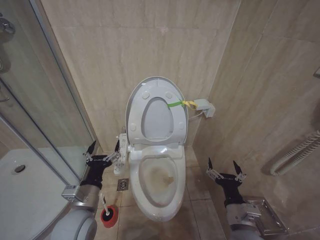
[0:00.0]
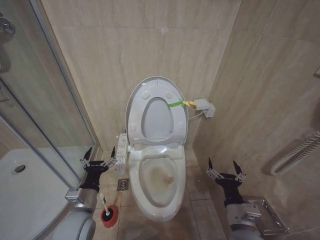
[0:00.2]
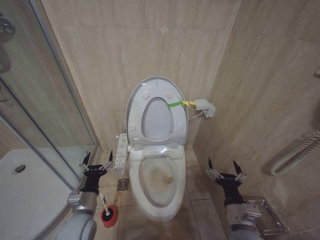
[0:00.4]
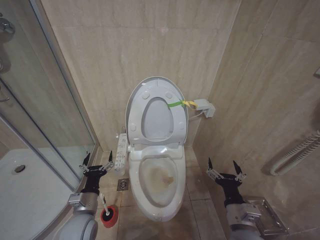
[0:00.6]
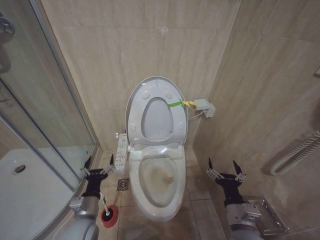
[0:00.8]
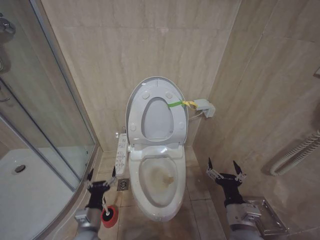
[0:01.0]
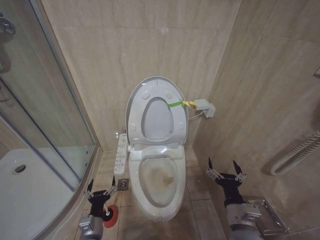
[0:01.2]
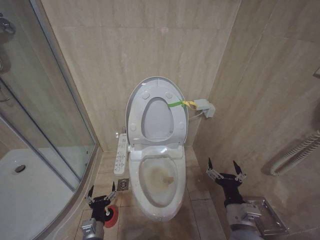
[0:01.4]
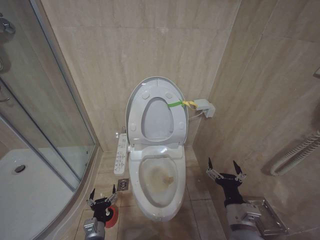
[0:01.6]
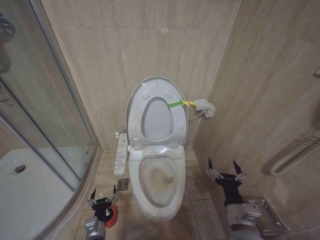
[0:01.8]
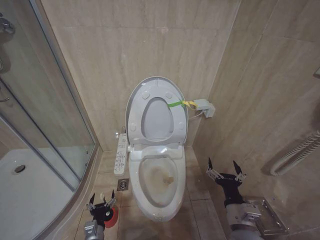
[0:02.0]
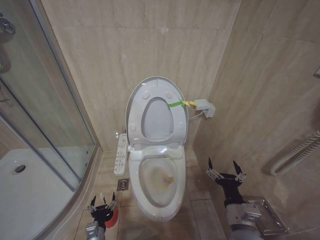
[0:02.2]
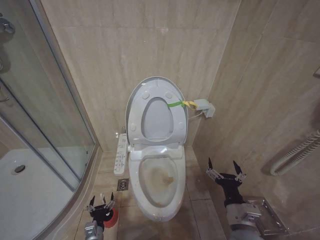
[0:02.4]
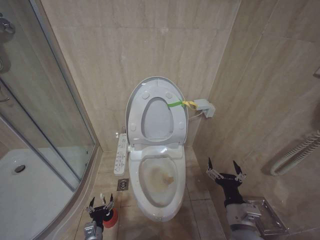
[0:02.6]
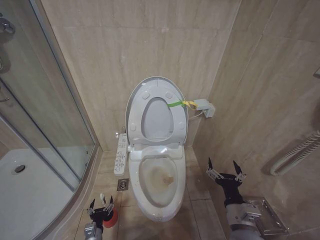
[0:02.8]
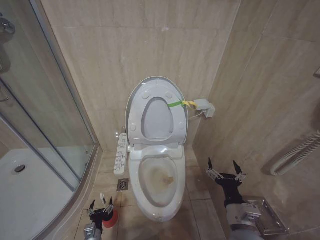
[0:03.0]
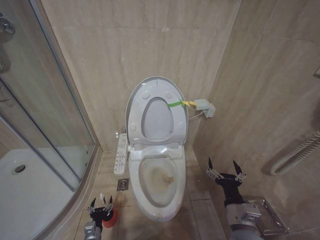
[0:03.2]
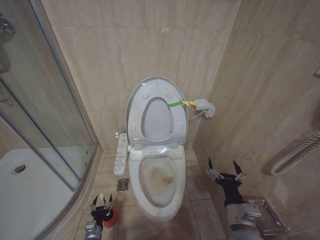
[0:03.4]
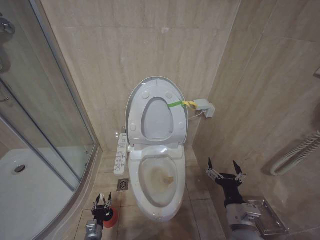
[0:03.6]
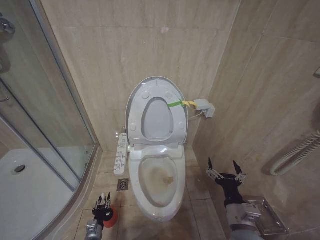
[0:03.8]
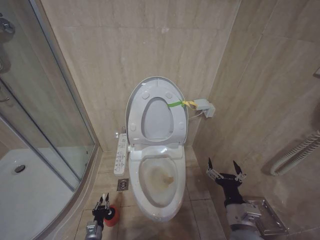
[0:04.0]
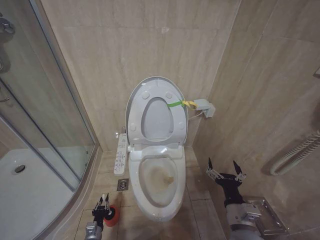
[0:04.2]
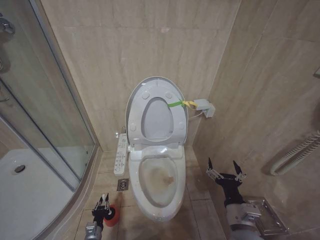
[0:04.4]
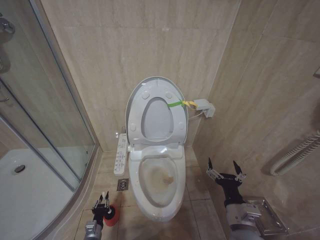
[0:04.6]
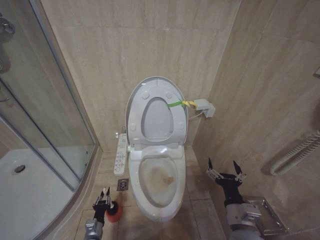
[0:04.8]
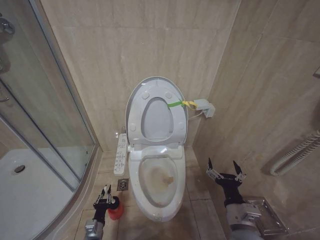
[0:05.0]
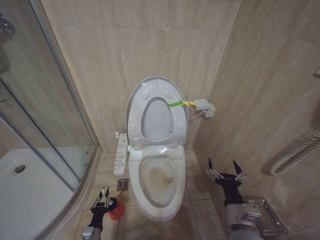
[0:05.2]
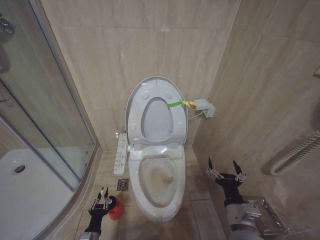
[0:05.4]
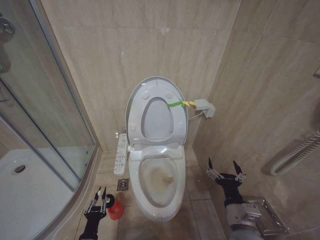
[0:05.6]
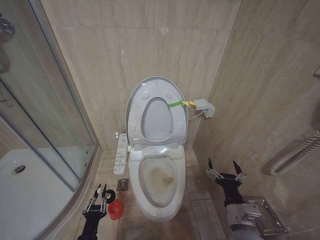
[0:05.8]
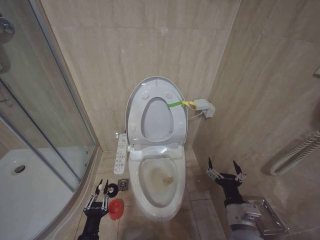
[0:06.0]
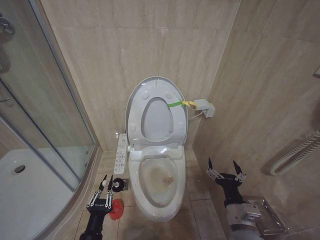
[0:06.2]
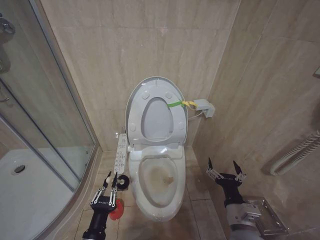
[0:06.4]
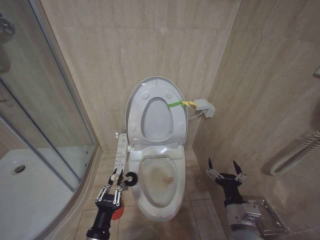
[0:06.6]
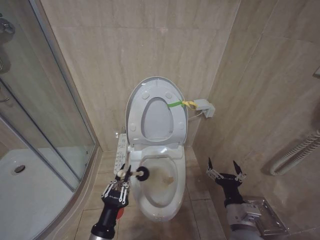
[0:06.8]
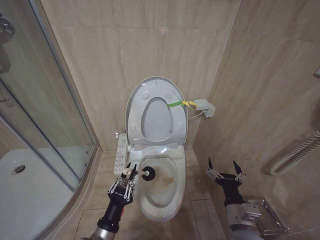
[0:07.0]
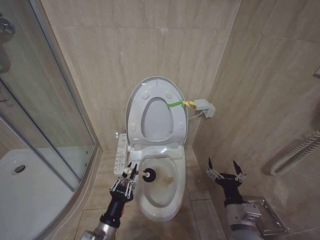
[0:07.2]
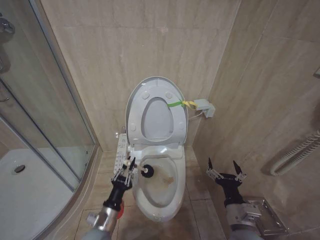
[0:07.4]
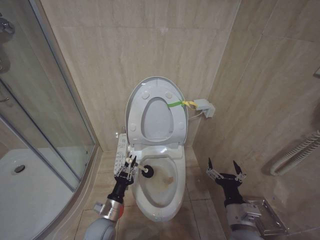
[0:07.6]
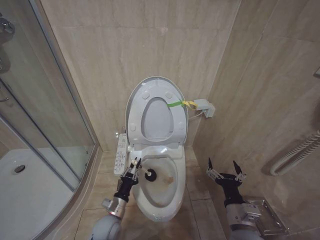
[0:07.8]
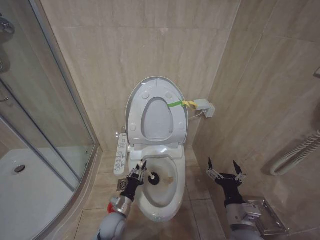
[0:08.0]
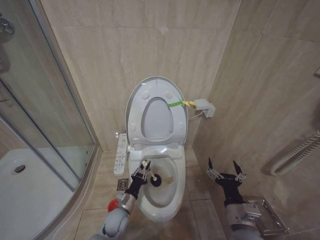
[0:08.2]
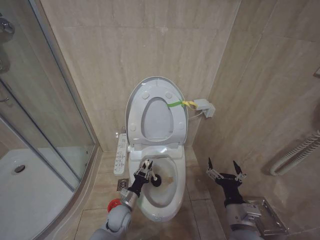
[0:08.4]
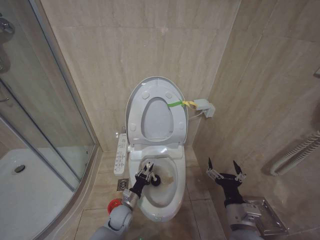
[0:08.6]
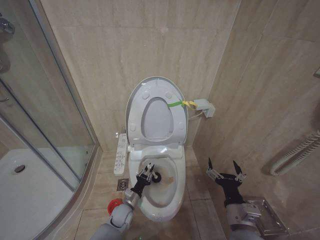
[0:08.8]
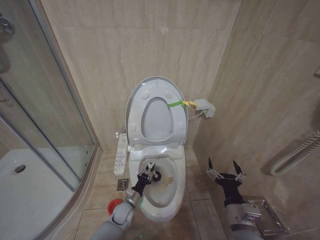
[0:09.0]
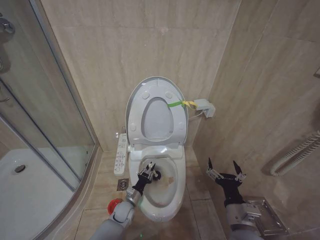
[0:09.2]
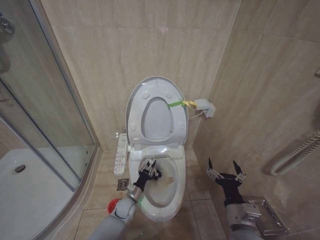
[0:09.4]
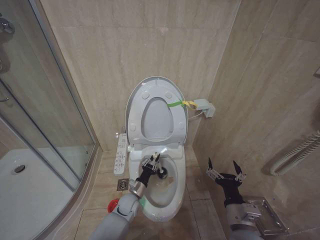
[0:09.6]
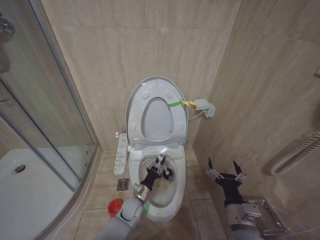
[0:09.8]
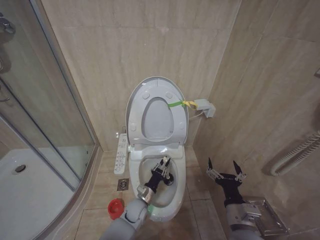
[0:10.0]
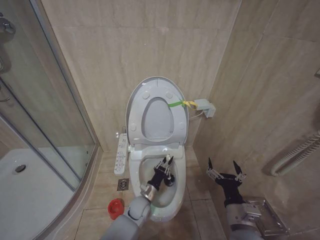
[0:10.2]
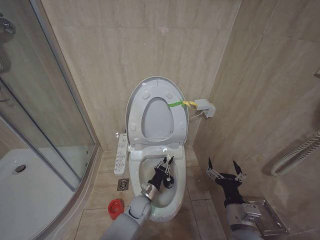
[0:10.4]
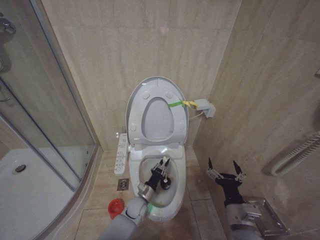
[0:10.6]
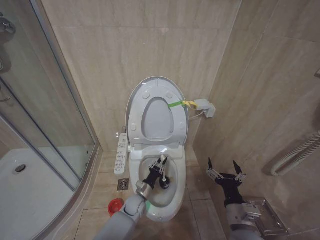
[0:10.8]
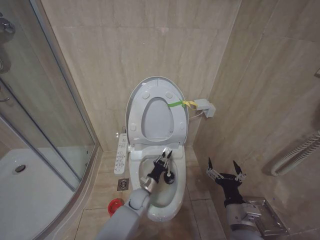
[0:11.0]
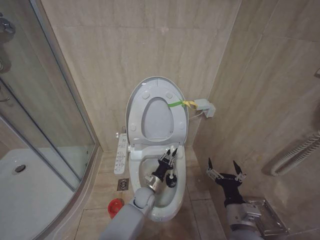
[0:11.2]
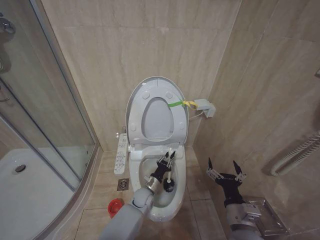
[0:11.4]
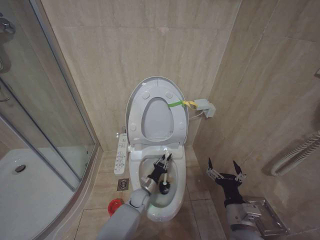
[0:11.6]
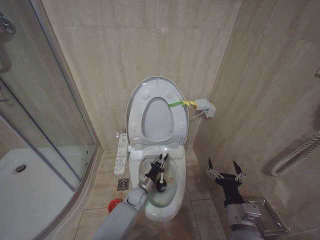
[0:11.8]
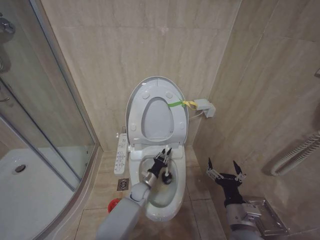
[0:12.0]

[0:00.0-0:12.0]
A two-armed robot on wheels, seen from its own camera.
Task of the whole recording: Open the toilet lid, clean the toilet bowl with a toilet brush, close the toilet lid, and flush.
0:00.0 to 0:01.6: The left gripper shifts roughly 25 cm downward.
0:01.6 to 0:03.0: The left gripper shifts approximately 10 cm downward.
0:04.4 to 0:06.0: The left gripper is displaced upward and backward by roughly 20 cm.
0:06.0 to 0:07.6: The left gripper is displaced forward by some 10 cm.
0:07.6 to 0:09.0: The left gripper heads downward, forward and to the right, covering approximately 15 cm.
0:09.0 to 0:10.4: The left gripper is displaced to the right by approximately 10 cm.
0:10.4 to 0:12.0: The left gripper heads forward, covering approximately 5 cm.

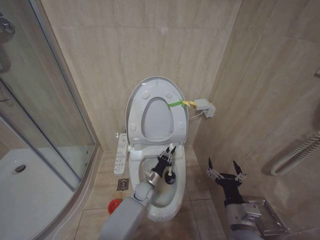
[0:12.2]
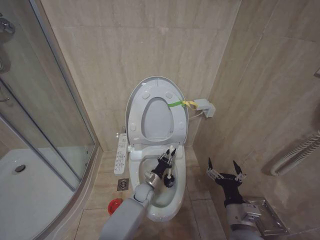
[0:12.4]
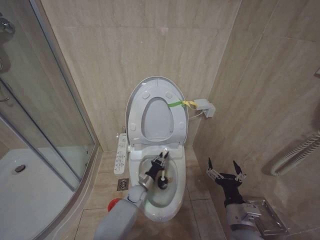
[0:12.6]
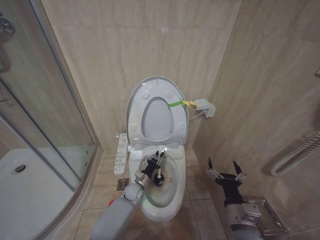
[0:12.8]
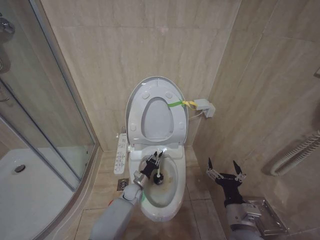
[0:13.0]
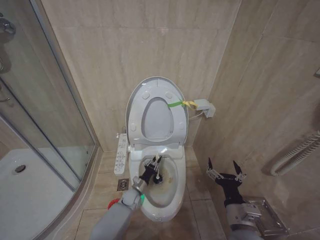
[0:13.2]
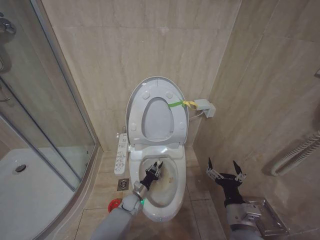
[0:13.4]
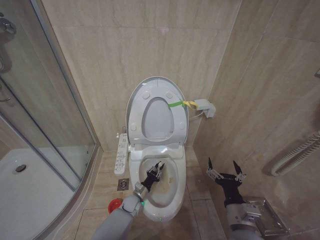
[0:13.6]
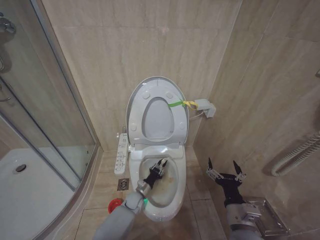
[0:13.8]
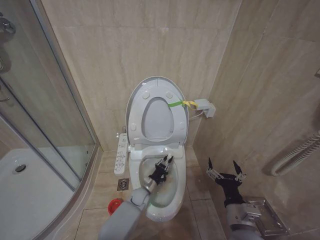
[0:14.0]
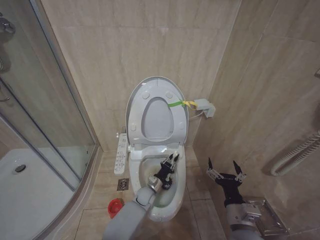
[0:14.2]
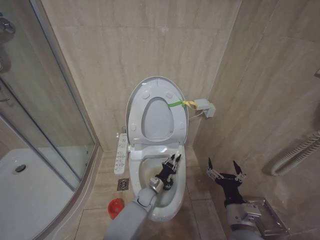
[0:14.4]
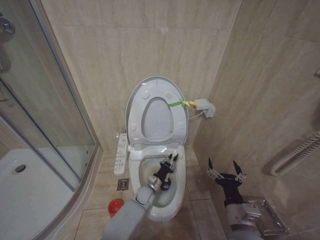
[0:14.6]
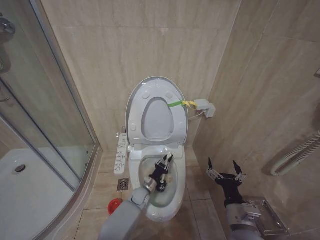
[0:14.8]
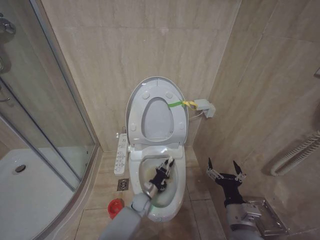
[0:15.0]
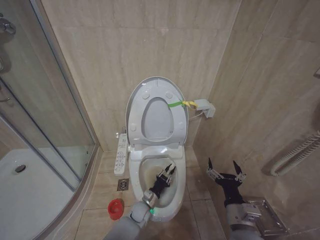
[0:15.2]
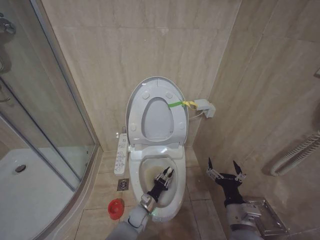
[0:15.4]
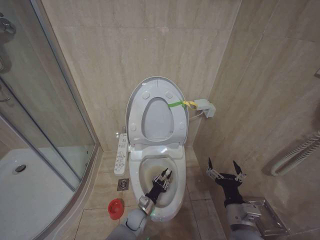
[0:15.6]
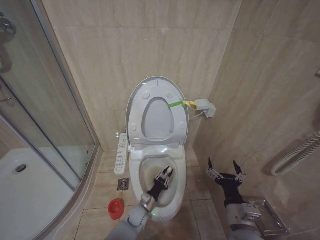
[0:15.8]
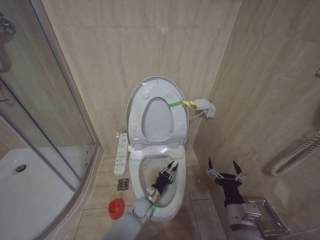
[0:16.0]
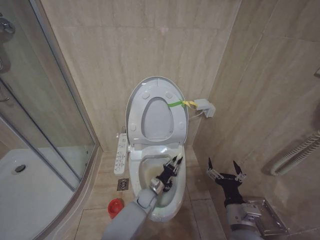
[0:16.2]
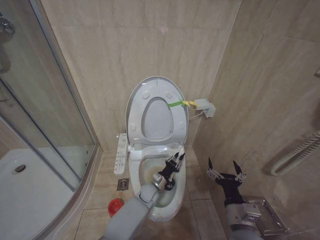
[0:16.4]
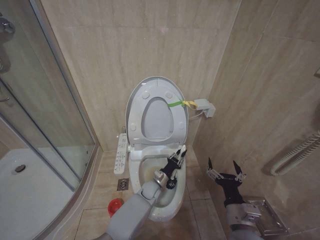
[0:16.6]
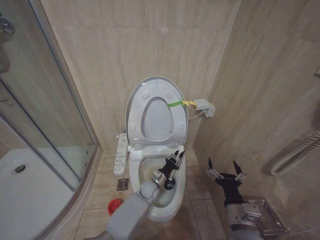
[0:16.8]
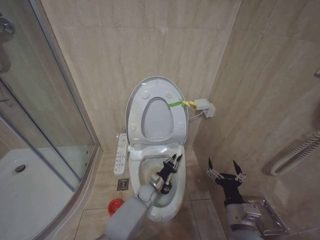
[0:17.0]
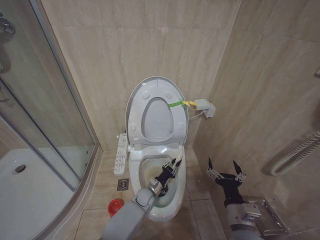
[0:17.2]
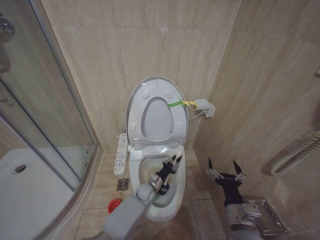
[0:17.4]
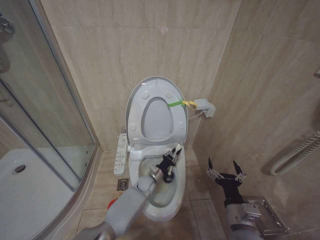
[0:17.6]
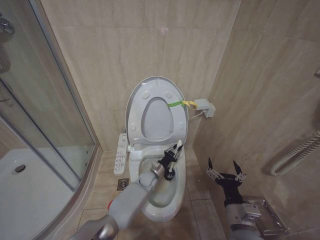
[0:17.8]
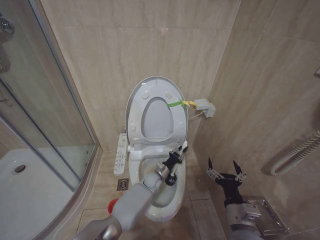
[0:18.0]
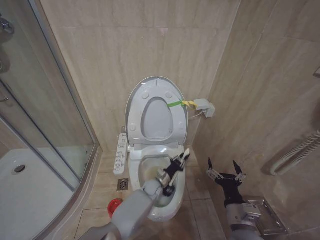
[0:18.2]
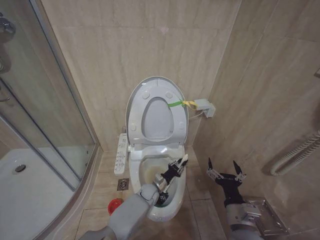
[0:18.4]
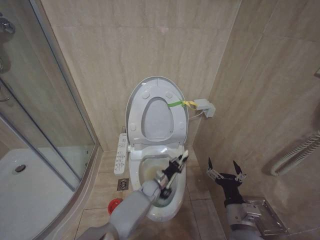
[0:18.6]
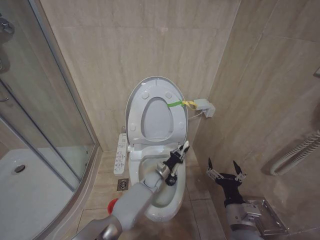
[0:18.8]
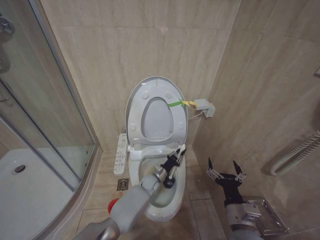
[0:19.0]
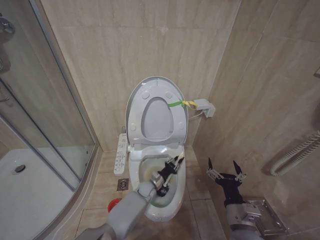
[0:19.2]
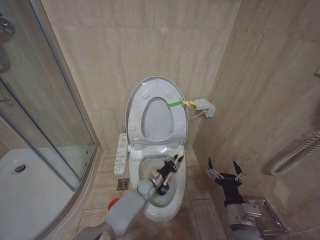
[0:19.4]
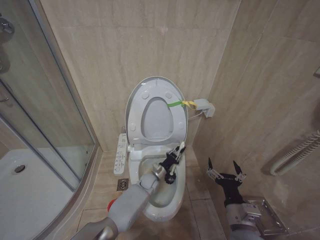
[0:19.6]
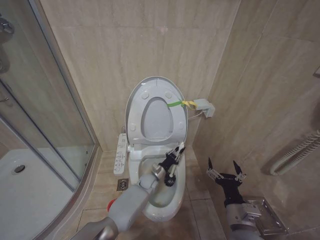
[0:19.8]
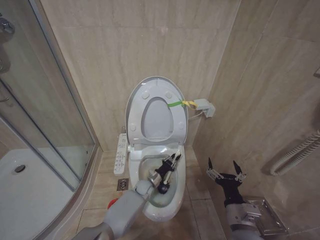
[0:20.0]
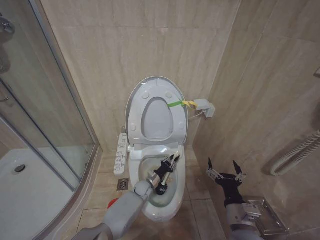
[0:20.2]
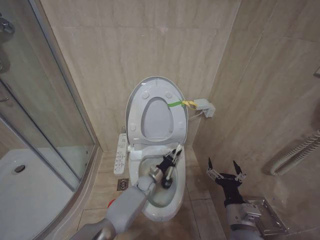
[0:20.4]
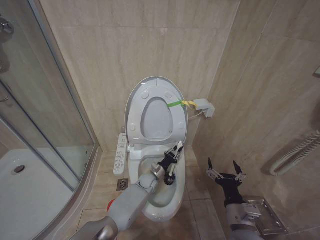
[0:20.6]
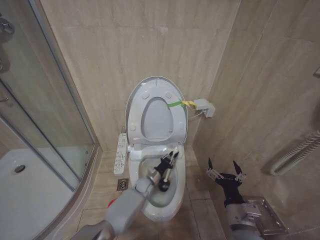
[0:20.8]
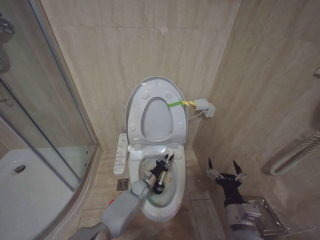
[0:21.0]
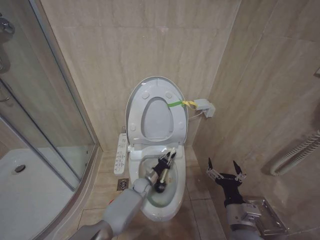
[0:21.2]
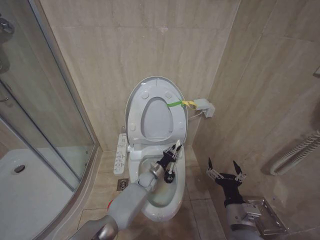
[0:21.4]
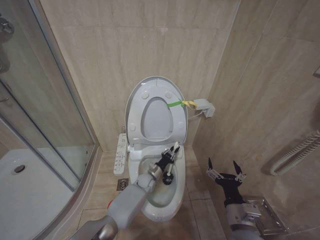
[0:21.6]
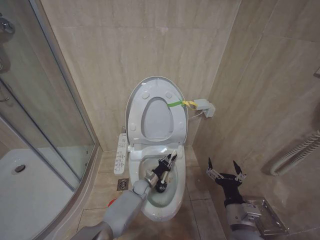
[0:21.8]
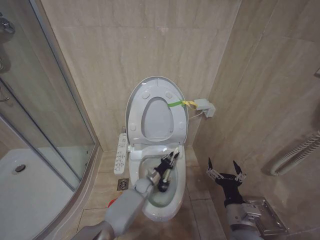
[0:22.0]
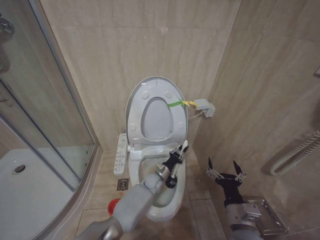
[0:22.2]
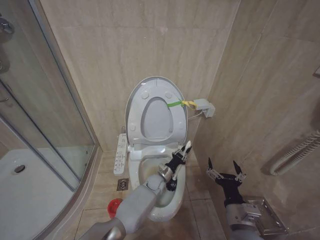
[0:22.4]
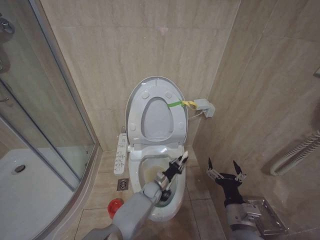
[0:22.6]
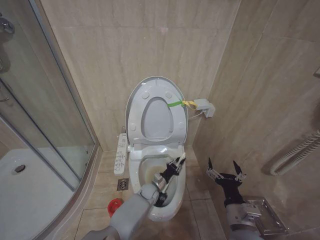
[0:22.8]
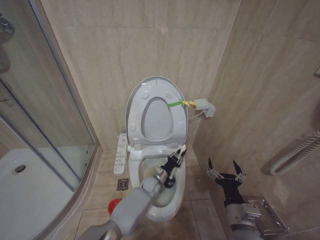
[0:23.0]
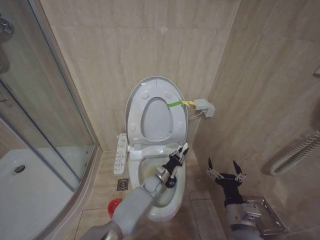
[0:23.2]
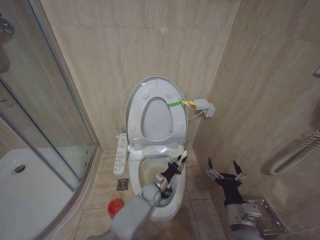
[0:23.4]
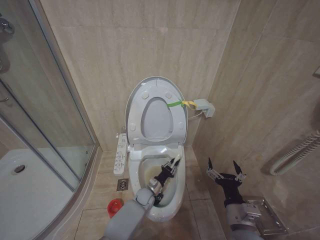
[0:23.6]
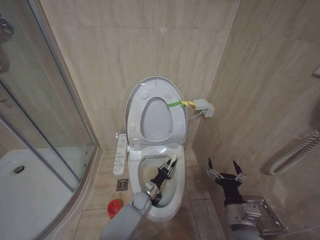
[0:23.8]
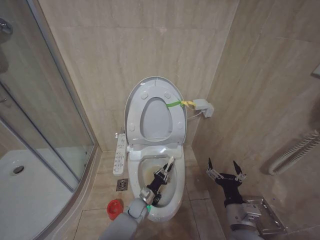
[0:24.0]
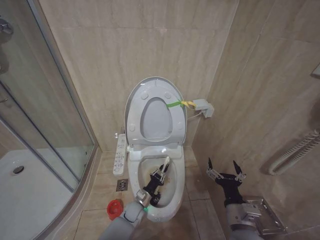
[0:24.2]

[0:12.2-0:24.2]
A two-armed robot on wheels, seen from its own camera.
Task of the whole recording: Open the toilet lid, clean the toilet bowl with a toilet brush, close the toilet lid, and flush.
0:12.2 to 0:13.8: The left gripper moves downward and to the left, approximately 10 cm.
0:15.2 to 0:16.6: The left gripper goes some 10 cm upward, forward and to the right.
0:16.6 to 0:19.8: The grippers make only small movements.
0:19.8 to 0:21.2: The left gripper travels to the left and downward by roughly 10 cm.
0:21.2 to 0:22.6: The left gripper goes approximately 5 cm to the right.
0:22.6 to 0:24.2: The left gripper moves to the left, backward and downward, approximately 15 cm.
